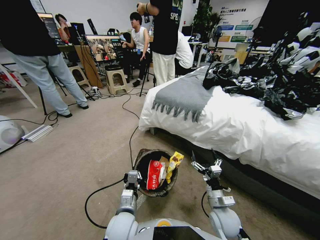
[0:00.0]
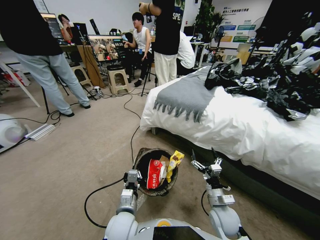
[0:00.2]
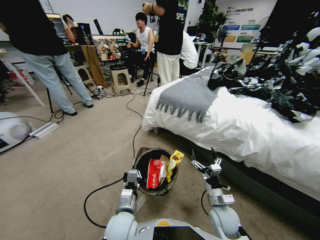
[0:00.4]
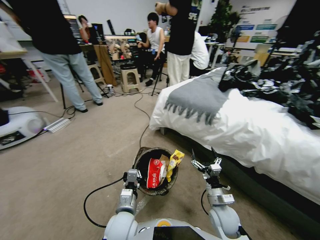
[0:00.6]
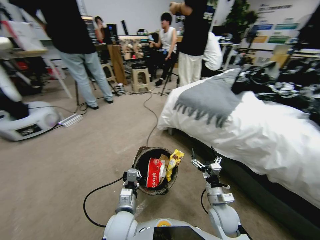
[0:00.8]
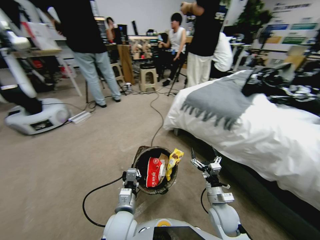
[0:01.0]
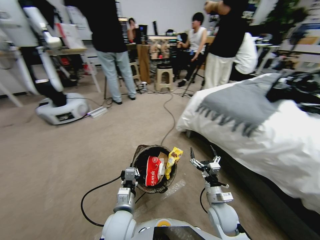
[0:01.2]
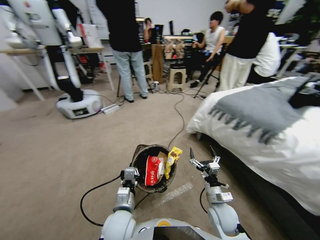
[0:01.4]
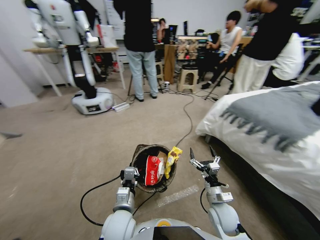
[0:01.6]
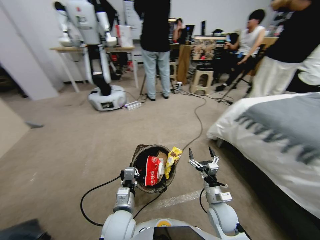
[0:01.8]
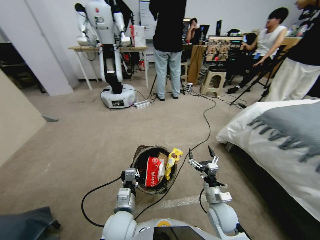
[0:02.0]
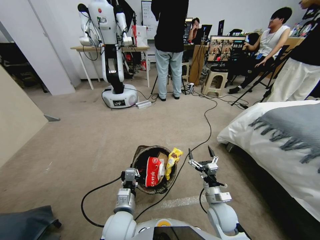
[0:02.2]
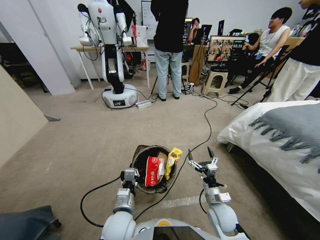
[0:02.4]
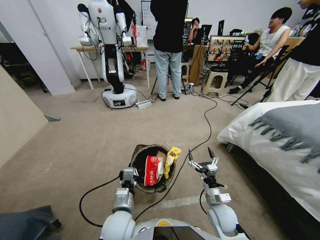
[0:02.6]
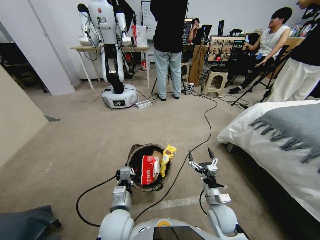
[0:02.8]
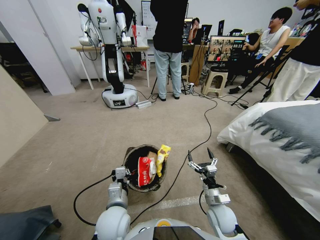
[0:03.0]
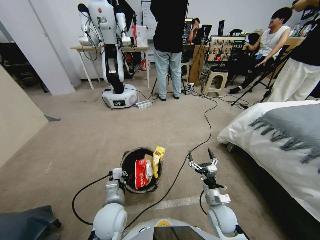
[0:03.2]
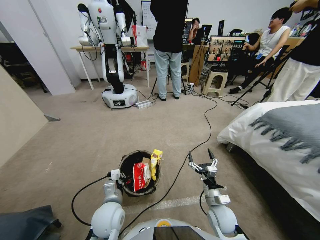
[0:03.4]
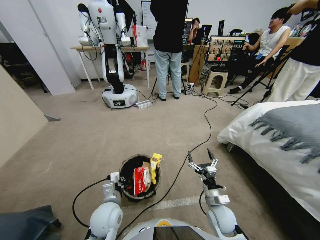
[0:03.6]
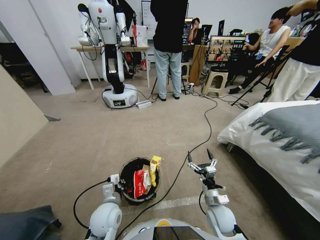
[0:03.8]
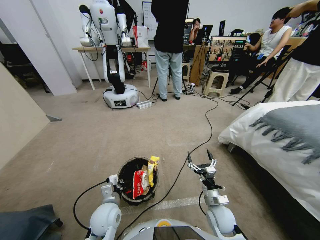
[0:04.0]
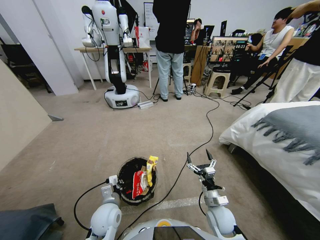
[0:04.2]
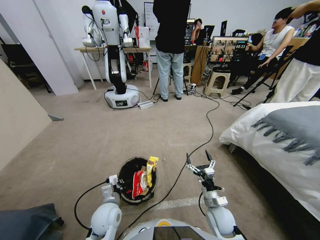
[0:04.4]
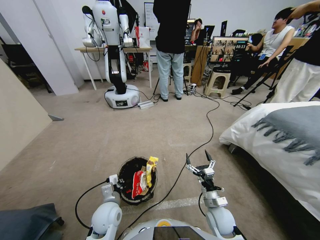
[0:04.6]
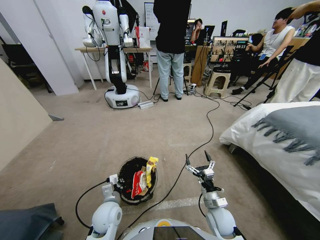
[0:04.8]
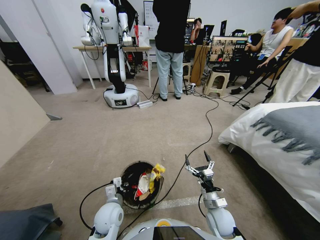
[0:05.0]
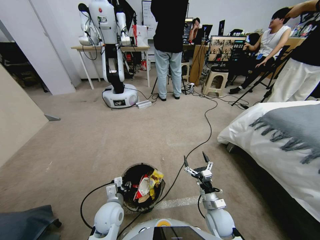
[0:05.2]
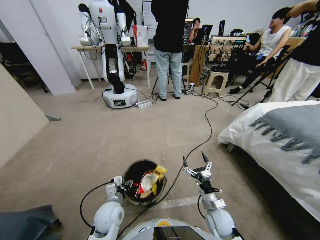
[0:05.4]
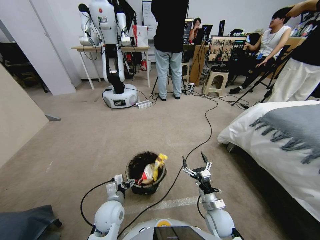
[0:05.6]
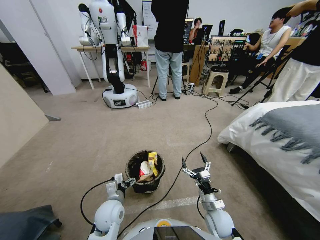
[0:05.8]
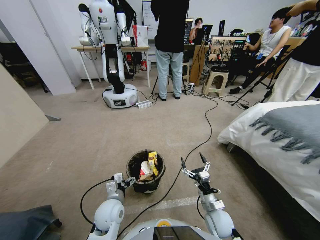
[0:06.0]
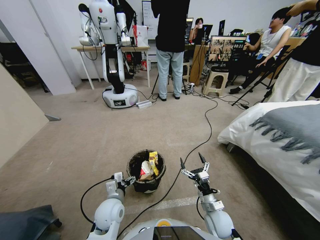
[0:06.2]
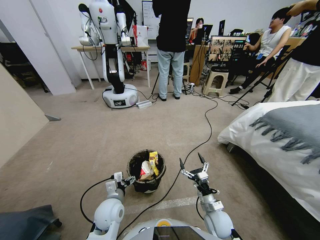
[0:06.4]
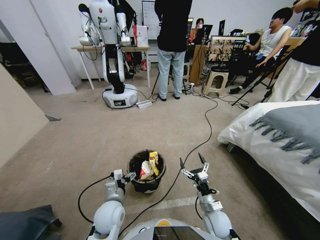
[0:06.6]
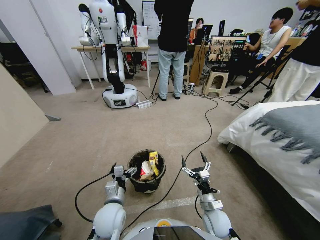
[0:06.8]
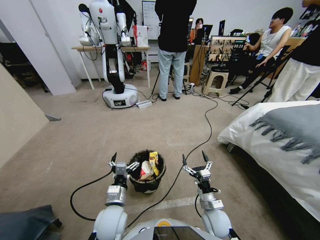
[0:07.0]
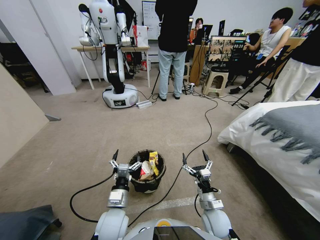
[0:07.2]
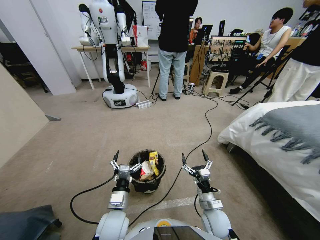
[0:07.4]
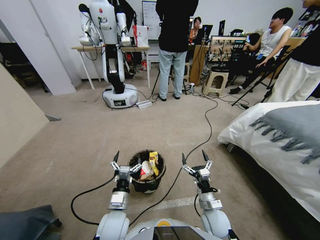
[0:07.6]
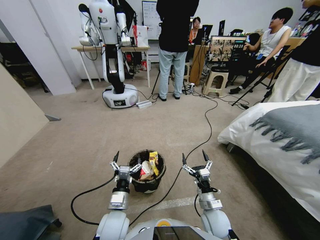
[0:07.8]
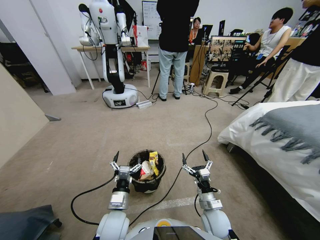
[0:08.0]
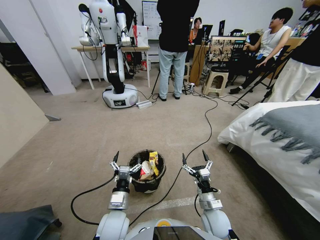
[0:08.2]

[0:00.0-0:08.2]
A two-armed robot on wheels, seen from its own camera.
Task of the whole recording: Pick up the trash bin, then pick up the garbage from the floor and place it into the trash bin.
0:03.2 to 0:05.0: The left gripper travels downward by approximately 5 cm, and opens.
0:05.0 to 0:06.6: The left gripper opens.

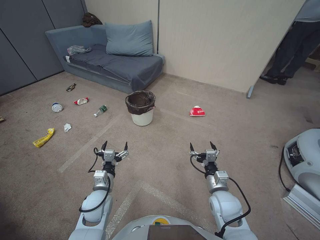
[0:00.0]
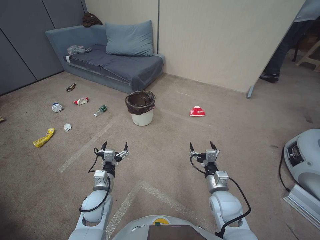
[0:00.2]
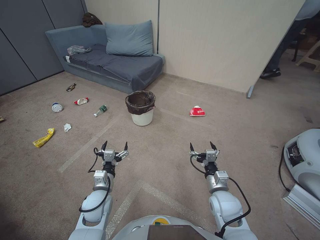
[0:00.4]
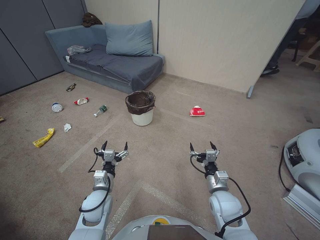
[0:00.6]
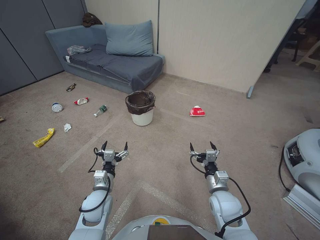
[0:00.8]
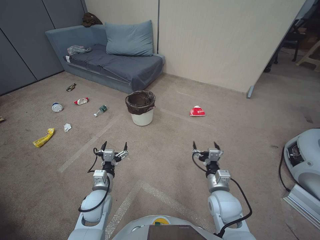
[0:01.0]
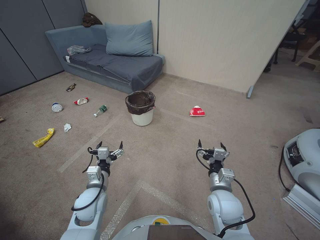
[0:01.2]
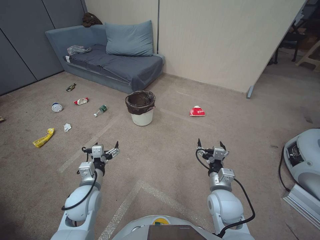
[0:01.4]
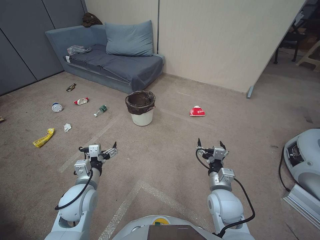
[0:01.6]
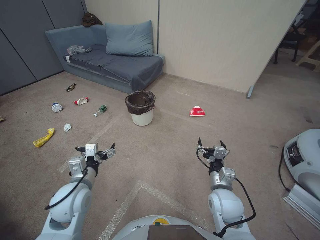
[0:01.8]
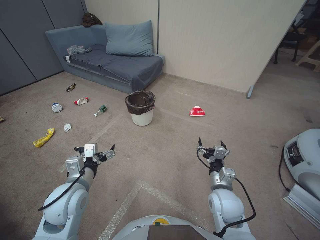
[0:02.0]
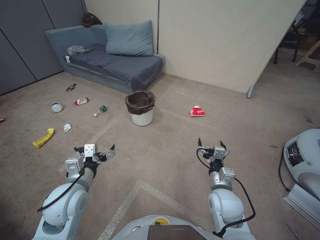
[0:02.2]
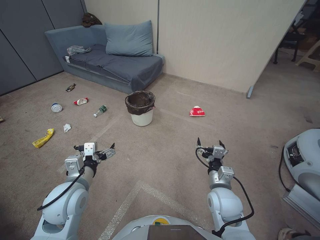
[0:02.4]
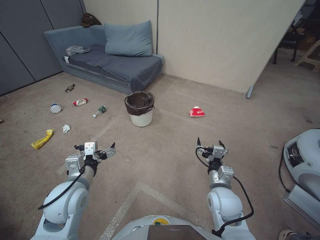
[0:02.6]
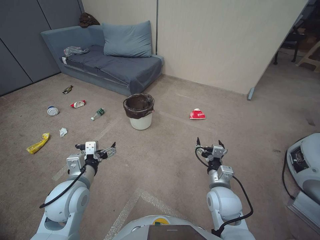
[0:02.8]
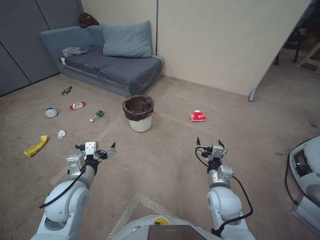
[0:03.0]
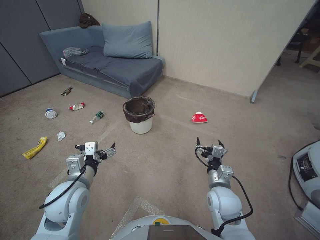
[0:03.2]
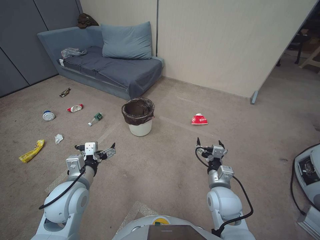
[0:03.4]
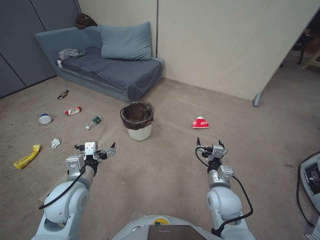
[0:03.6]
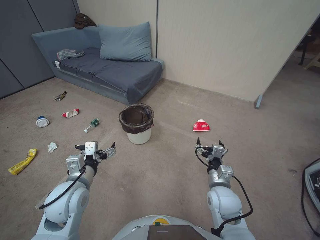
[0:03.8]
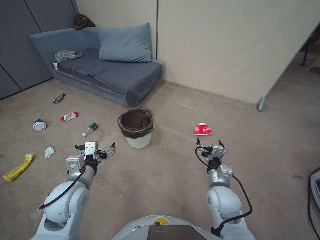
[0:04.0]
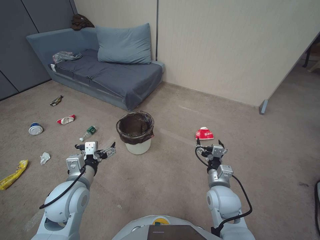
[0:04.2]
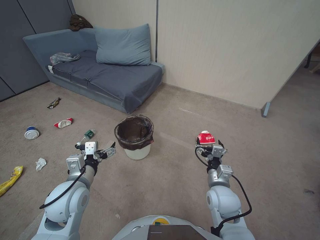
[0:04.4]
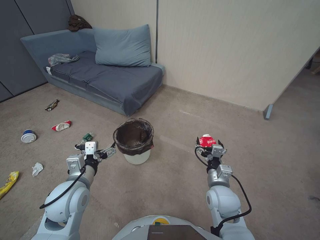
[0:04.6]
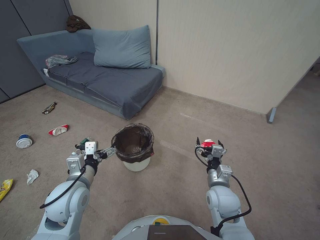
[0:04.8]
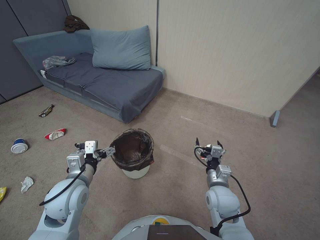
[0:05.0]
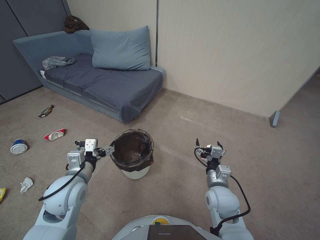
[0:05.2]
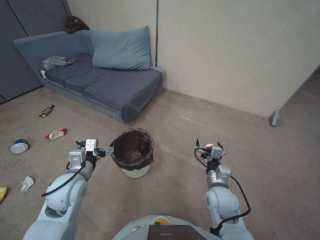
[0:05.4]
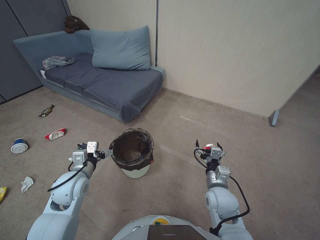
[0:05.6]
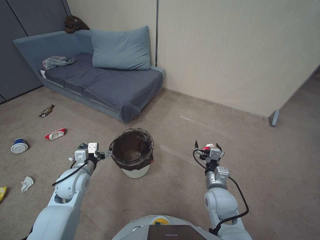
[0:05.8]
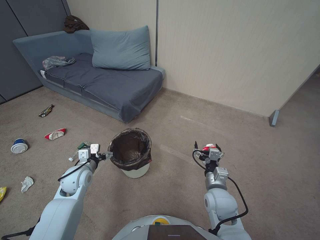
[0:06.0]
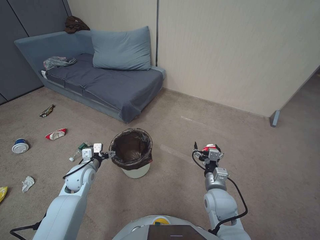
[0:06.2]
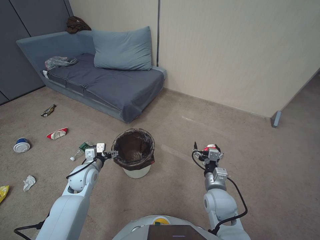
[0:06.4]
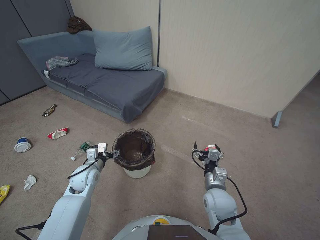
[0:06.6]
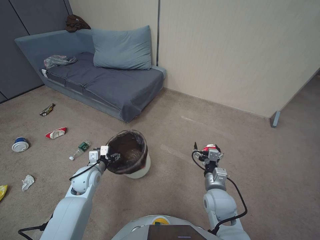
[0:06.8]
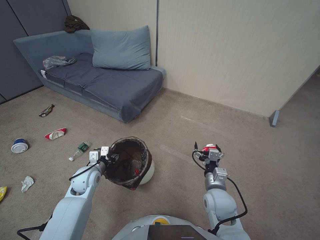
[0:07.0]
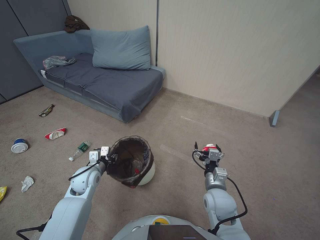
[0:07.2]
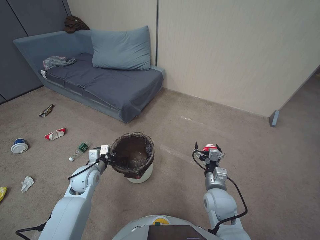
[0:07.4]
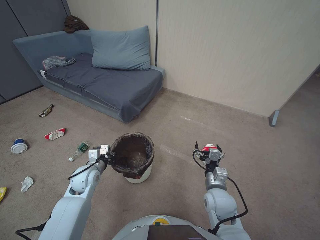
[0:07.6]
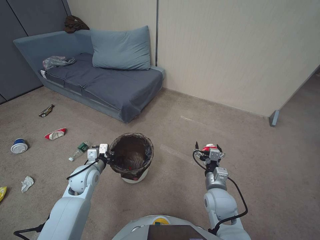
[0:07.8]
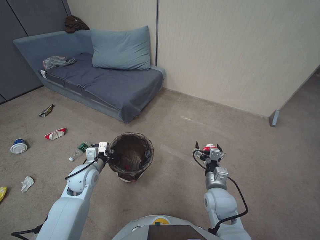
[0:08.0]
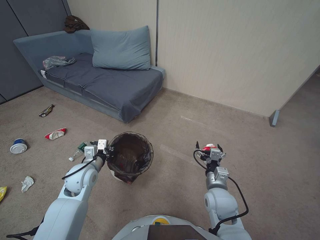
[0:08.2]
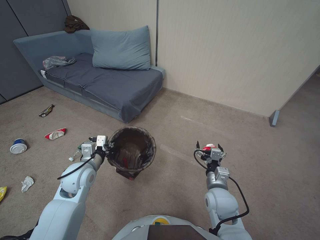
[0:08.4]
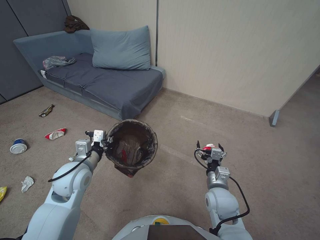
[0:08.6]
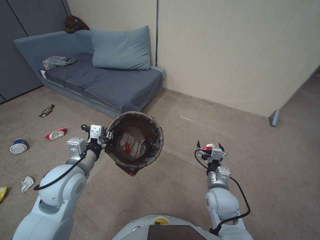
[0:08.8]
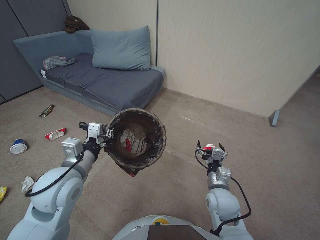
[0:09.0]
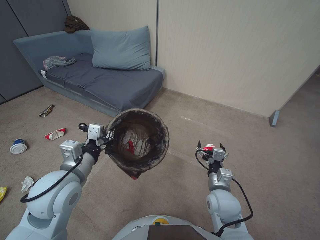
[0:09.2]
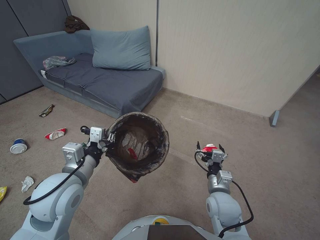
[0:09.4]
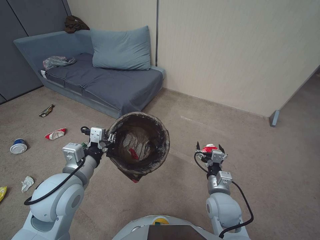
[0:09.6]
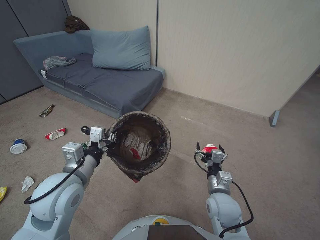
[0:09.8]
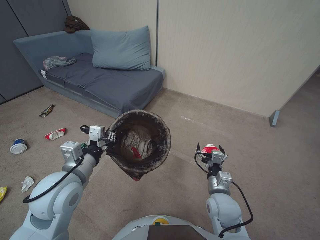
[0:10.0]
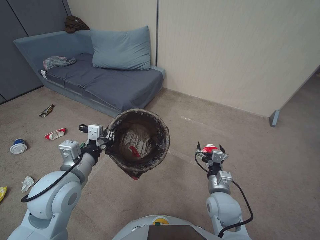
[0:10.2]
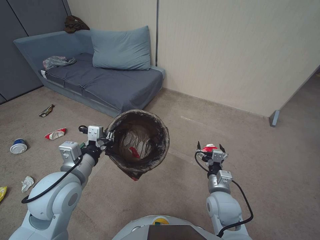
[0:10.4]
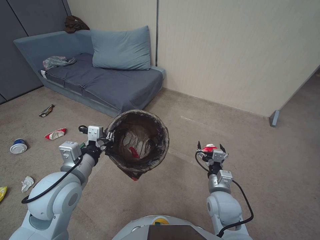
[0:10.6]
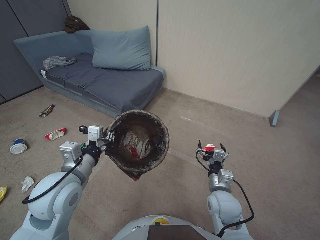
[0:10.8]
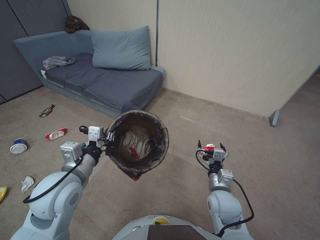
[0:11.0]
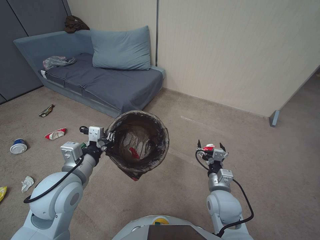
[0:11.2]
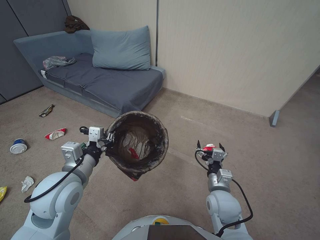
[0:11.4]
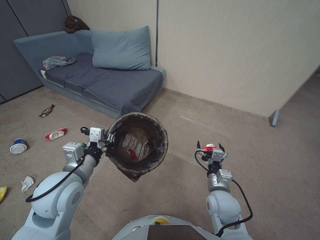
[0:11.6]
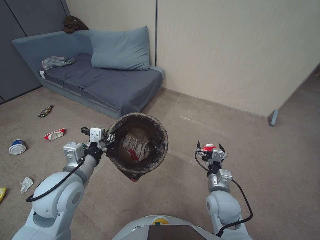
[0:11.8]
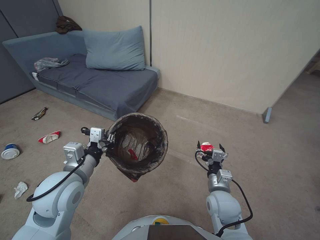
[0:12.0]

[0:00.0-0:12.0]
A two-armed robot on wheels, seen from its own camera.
Task of the whole recording: Pick up the trash bin, then pick up the garbage from the floor and place it into the trash bin.
0:01.6 to 0:03.0: The left gripper moves upward, approximately 5 cm.
0:03.0 to 0:04.4: Both grippers stay about where they are.
0:04.4 to 0:06.0: The left gripper is displaced forward and downward by approximately 10 cm.
0:06.0 to 0:07.6: The left gripper closes its fingers.
0:07.6 to 0:09.0: The left gripper goes roughly 20 cm upward and backward.
0:09.0 to 0:10.4: There are only small adjustments of the grippers.
0:10.4 to 0:12.0: The two grippers keep their place.

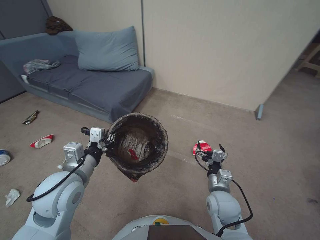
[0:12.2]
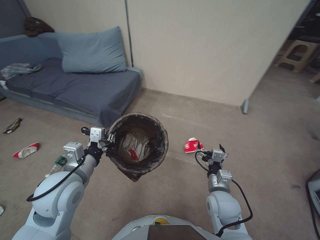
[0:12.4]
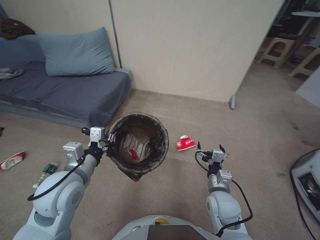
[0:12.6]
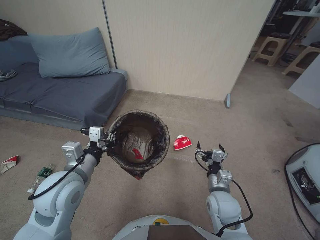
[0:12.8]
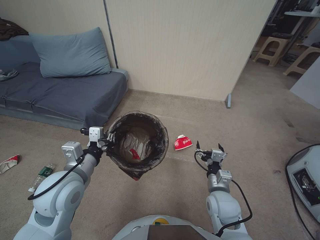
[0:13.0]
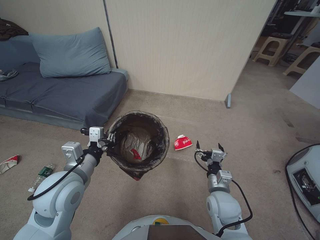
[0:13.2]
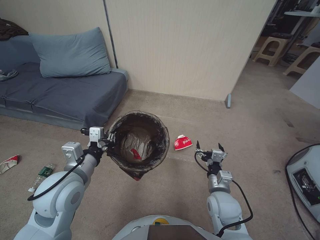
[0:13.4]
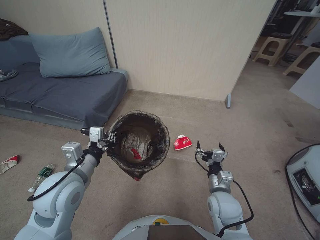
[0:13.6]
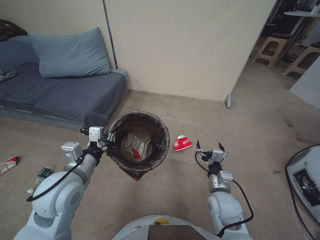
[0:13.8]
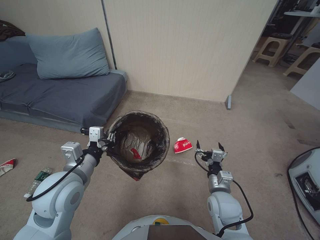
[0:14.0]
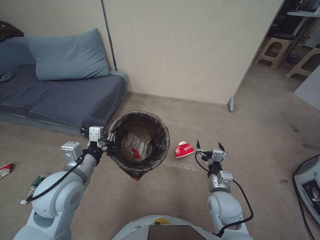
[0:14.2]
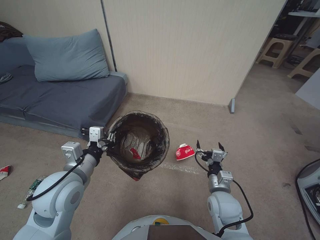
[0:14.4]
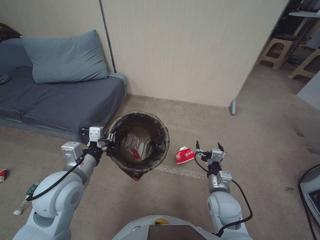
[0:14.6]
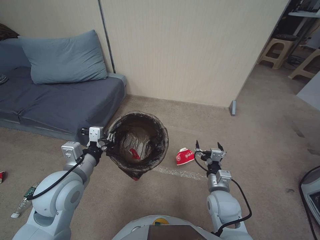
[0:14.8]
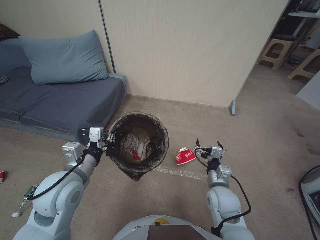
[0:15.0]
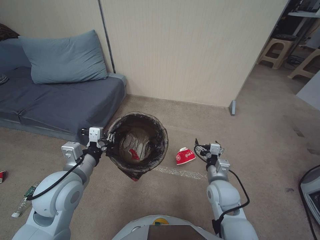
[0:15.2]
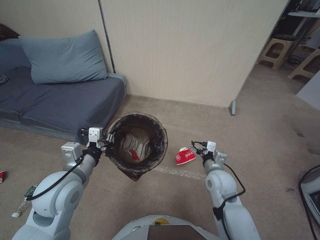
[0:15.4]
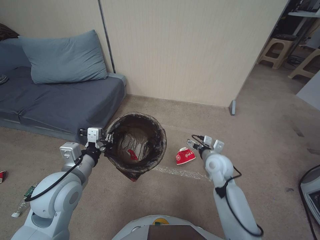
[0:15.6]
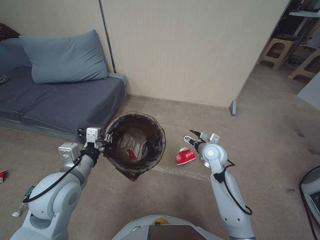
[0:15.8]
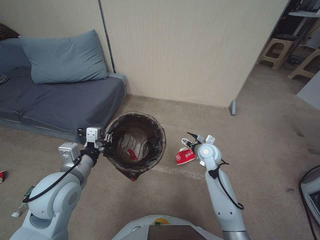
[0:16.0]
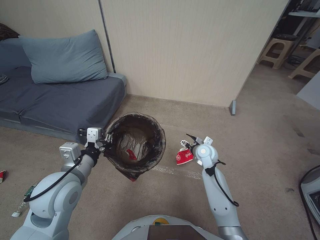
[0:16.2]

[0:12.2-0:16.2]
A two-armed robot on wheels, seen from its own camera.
Task of the whole recording: Pick up the trash bin, then pick up the garbage from the floor and place it into the trash bin.
0:13.6 to 0:14.8: The two grippers keep their place.
0:14.8 to 0:16.2: The right gripper goes approximately 20 cm forward.
